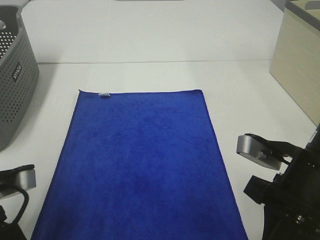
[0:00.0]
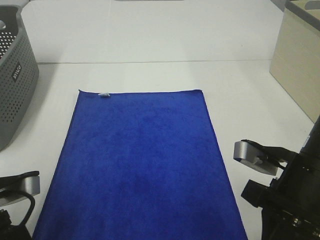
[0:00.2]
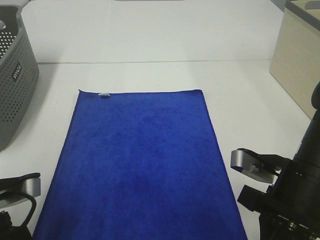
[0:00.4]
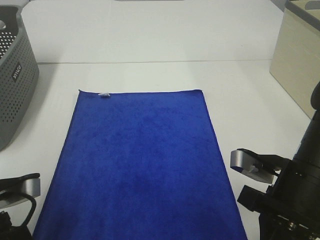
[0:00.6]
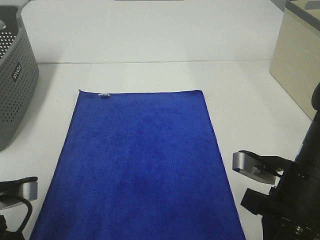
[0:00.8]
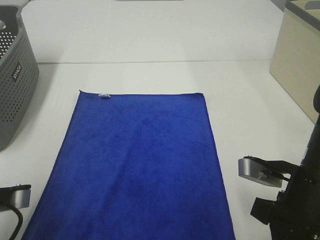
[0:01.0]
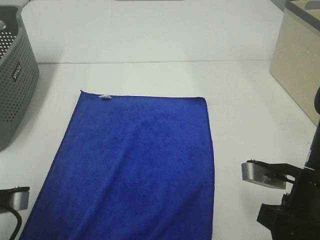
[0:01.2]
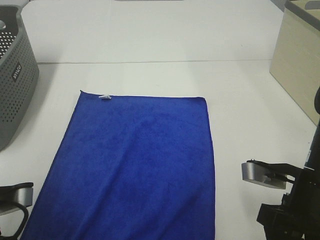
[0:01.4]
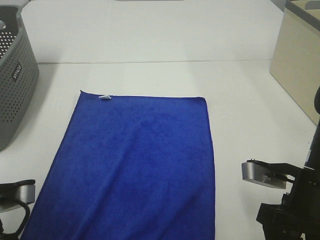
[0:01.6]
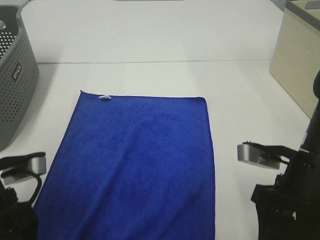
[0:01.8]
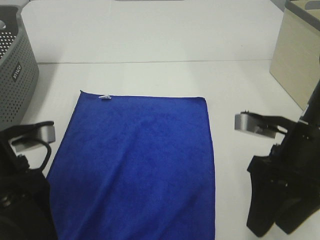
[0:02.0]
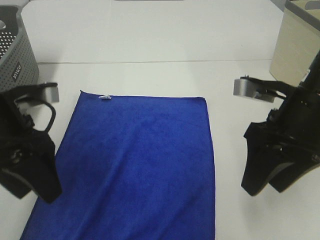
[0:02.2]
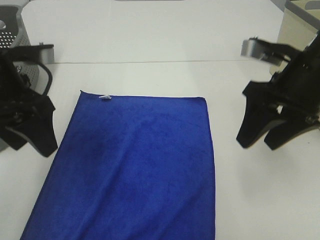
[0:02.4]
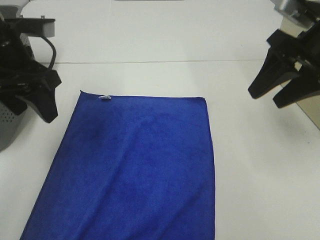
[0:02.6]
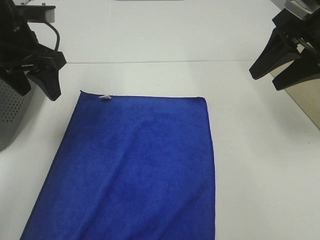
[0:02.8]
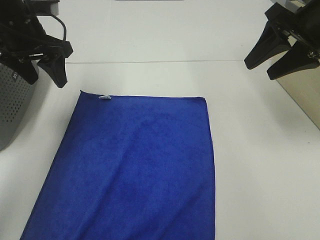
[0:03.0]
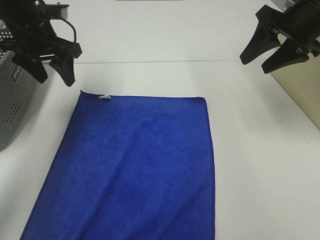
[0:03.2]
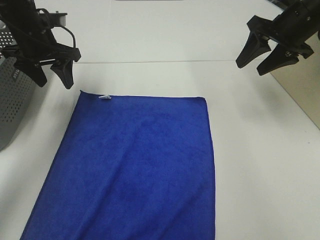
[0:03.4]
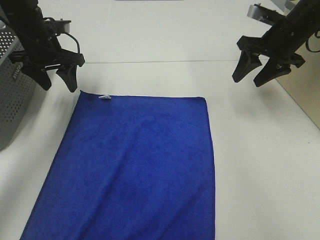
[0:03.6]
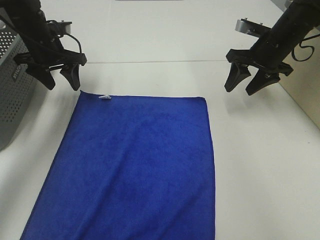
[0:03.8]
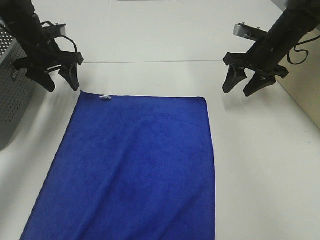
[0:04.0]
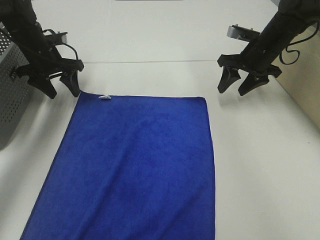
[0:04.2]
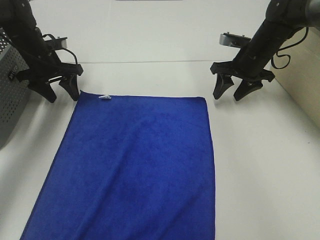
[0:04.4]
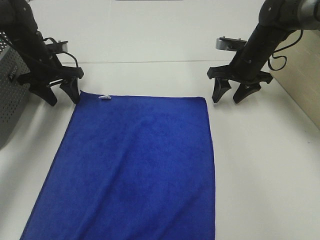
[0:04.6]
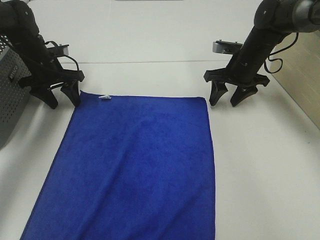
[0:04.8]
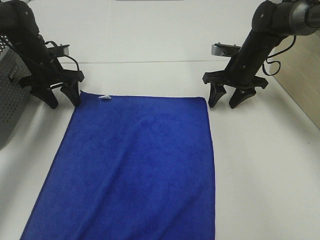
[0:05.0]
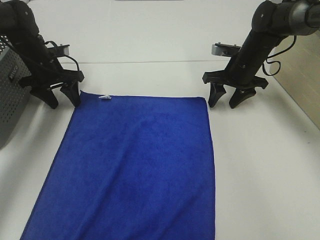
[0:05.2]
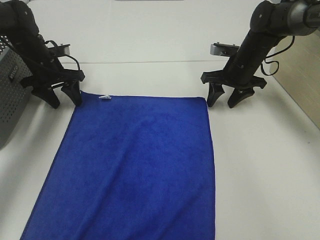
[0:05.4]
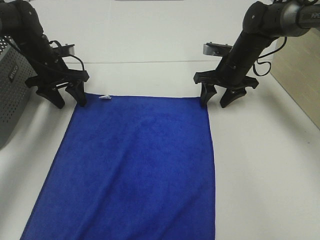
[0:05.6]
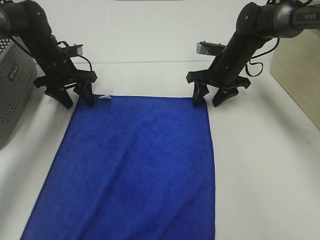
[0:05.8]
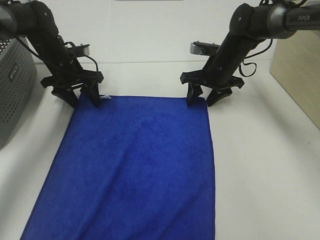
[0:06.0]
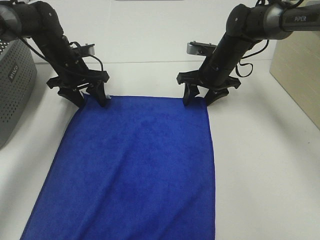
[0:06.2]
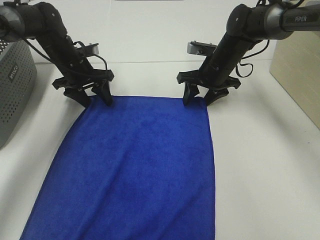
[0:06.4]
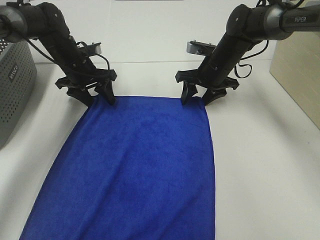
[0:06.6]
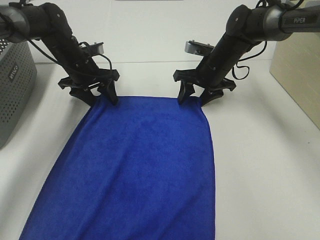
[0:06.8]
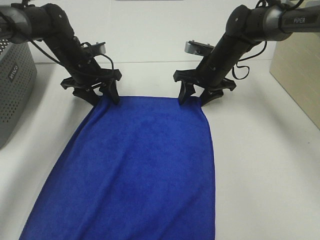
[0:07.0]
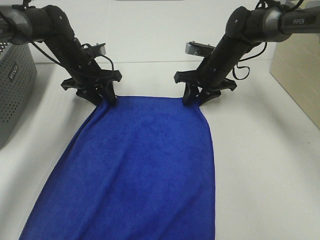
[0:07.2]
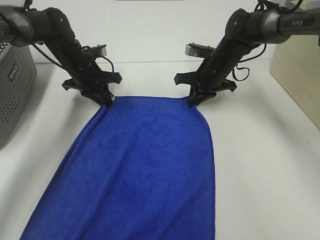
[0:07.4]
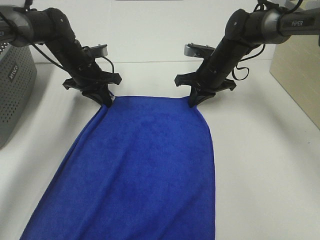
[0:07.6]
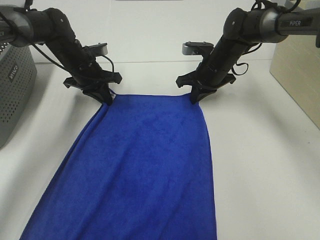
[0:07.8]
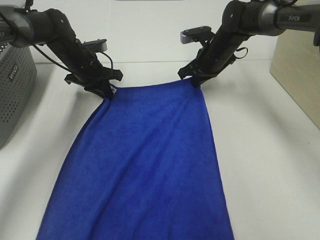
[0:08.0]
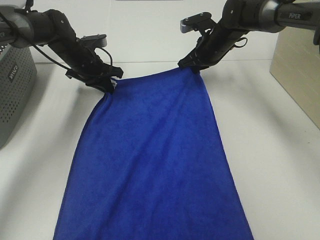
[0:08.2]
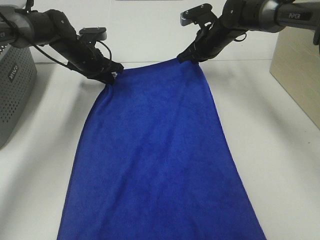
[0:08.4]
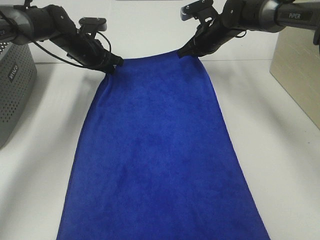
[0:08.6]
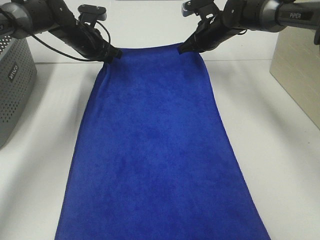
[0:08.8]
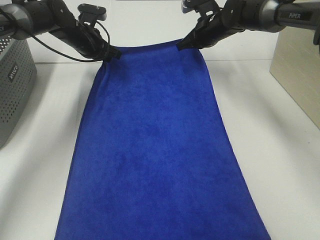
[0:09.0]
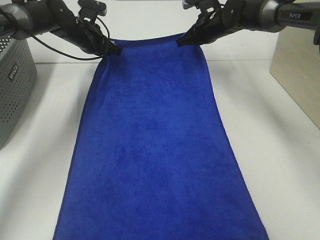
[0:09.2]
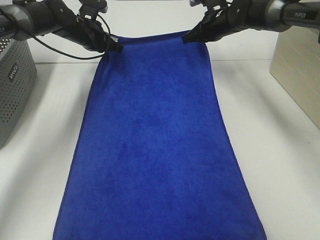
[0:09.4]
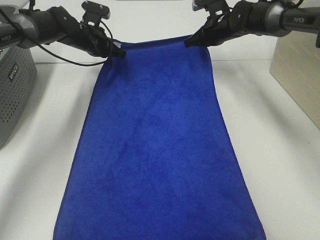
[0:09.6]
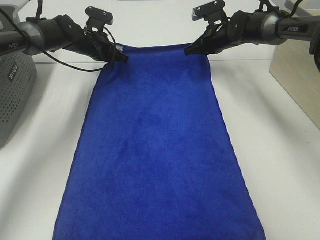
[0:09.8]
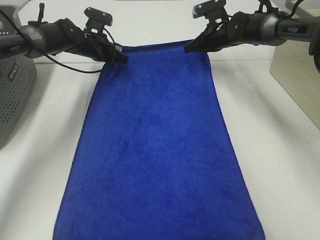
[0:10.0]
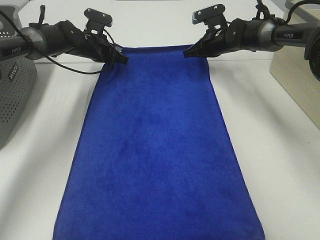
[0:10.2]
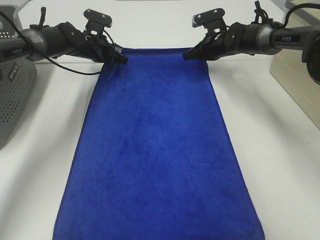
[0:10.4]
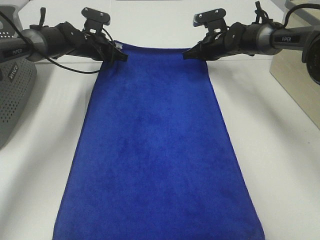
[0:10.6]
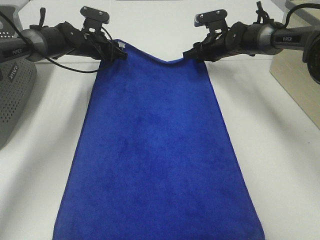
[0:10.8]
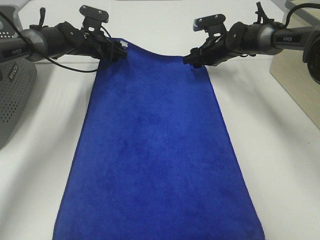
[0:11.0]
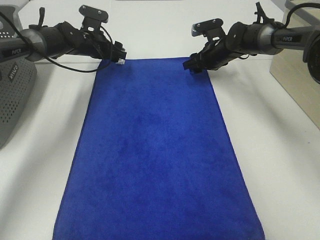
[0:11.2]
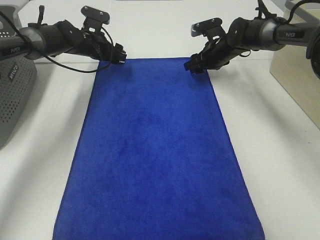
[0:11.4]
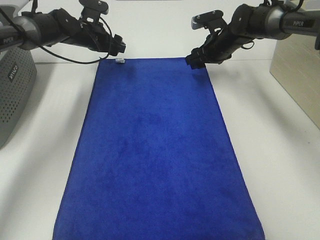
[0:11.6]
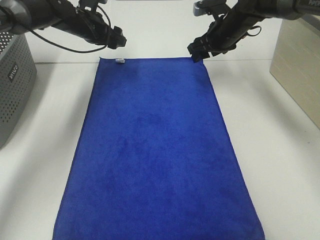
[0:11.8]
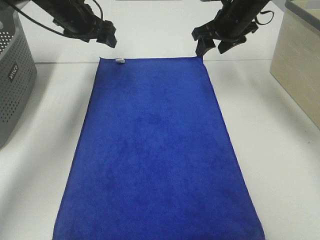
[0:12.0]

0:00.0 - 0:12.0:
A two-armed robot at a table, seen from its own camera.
Task of the whole recording: Remove the towel and place it.
Step, 0:00.0 - 0:04.4: Left hand:adjust the blue towel.
Step, 0:00.0 - 0:04.4: Right hand:adjust the blue towel.
0:00.0 - 0:01.6: The left gripper opens its fingers; the right gripper opens its fingers.
0:01.6 - 0:03.0: The right gripper heads forward and upward, covering some 25 cm, while the left gripper travels forward by about 25 cm.
0:03.0 - 0:04.4: Both grippers move downward and forward, some 15 cm.
0:04.4 - 0:06.0: The right gripper heads to the left, covering roughly 5 cm. The left gripper moves approximately 5 cm.
0:06.0 - 0:07.6: The left gripper closes up; the right gripper closes.
0:07.6 - 0:09.0: The right gripper travels forward and upward by some 10 cm. Meanwhile the left gripper travels forward by approximately 5 cm.
0:09.0 - 0:10.4: The right gripper goes about 5 cm downward.
0:10.4 - 0:12.0: The right gripper travels upward and backward by some 15 cm, and opens its fingers, while the left gripper is displaced upward by about 10 cm, and opens up.

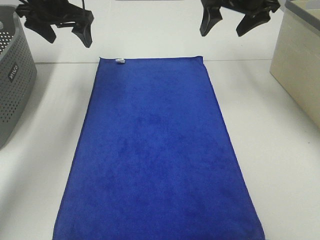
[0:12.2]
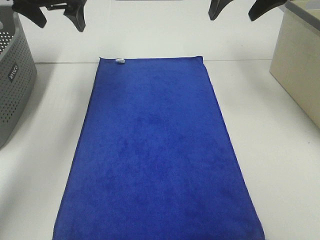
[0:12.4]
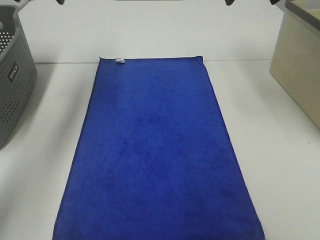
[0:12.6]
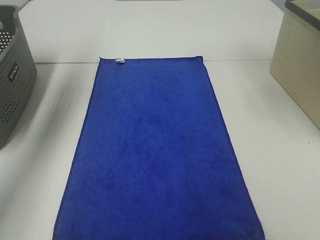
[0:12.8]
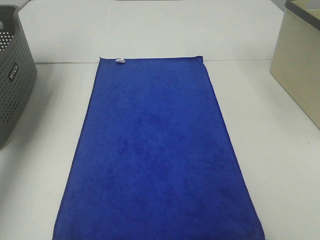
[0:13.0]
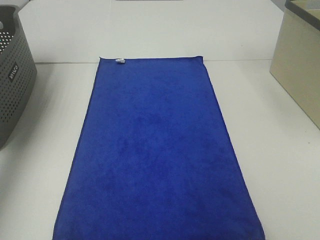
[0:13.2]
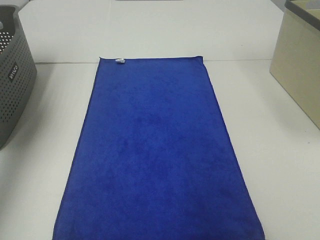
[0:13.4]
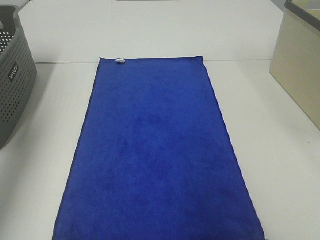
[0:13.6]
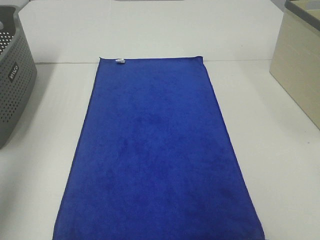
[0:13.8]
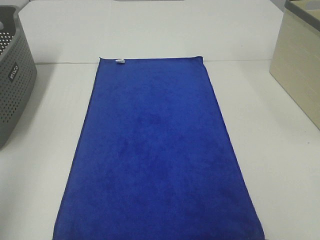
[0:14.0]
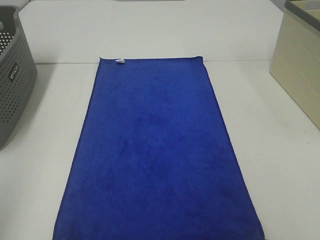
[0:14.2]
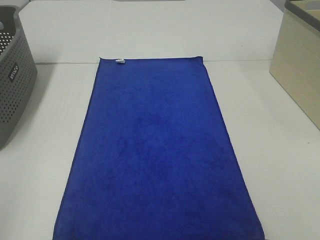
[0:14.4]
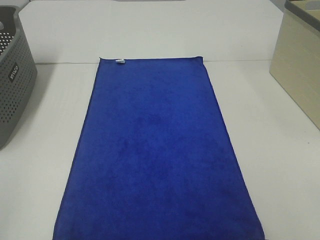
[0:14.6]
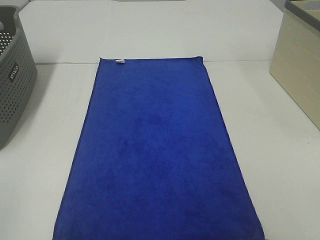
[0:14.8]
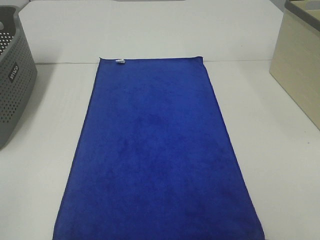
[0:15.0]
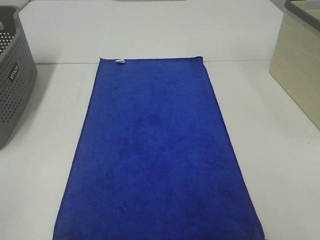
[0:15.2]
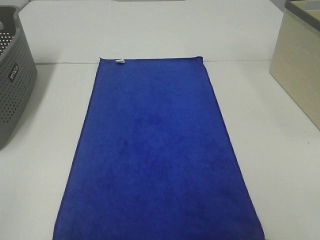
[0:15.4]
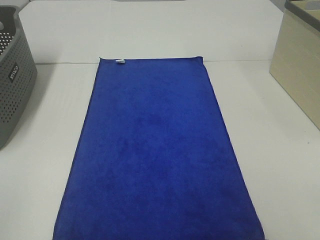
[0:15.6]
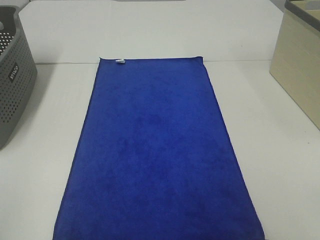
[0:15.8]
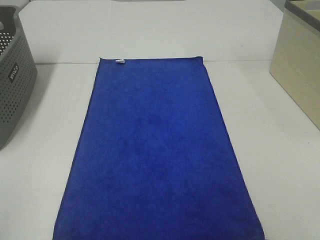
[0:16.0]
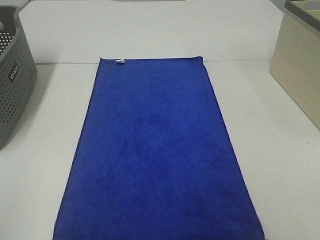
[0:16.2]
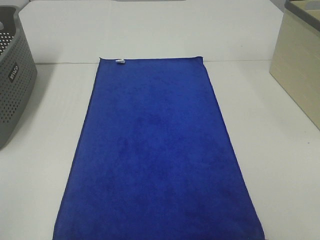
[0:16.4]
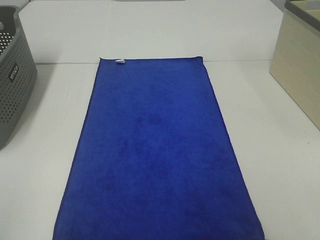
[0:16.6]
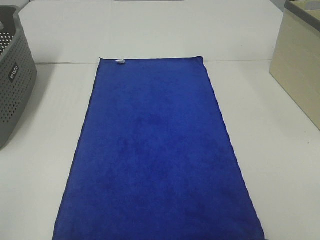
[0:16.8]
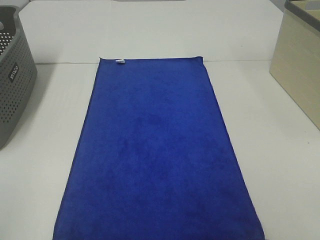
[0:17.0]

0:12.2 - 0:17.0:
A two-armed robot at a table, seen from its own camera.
Task of the whole recording: Remove the towel and place it.
0:12.2 - 0:13.8: The left gripper is displaced backward and to the left by some 35 cm. Meanwhile the right gripper is displaced backward by about 30 cm.
0:13.8 - 0:15.4: The left gripper travels backward and downward by about 20 cm.
0:15.4 - 0:17.0: The two grippers keep their place.

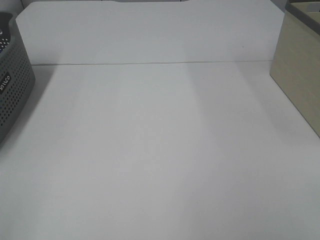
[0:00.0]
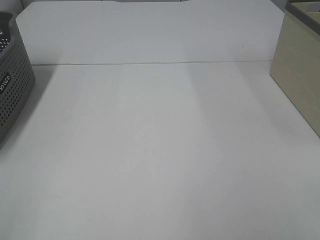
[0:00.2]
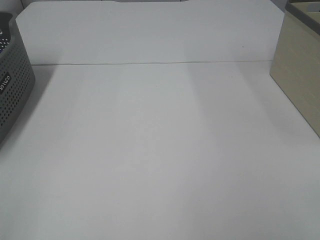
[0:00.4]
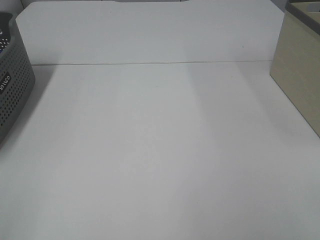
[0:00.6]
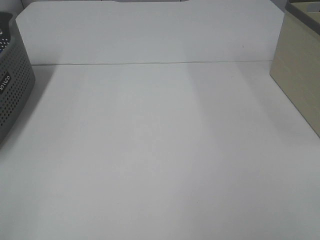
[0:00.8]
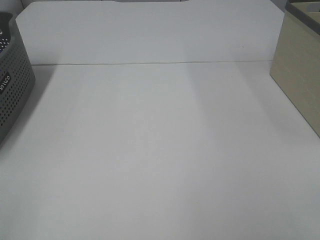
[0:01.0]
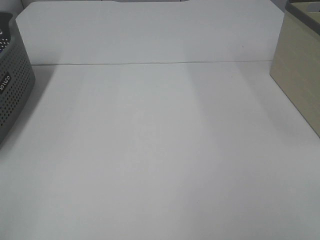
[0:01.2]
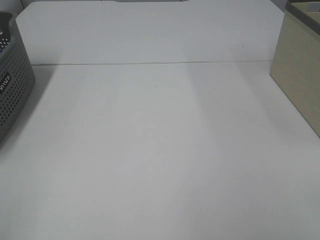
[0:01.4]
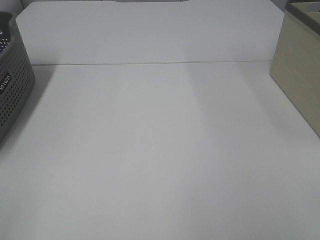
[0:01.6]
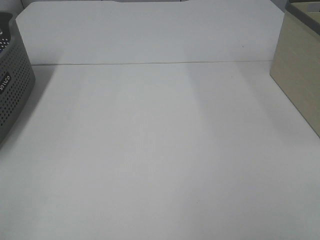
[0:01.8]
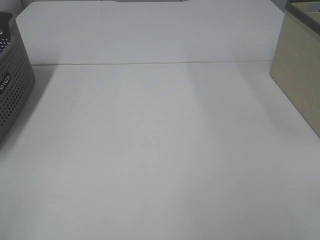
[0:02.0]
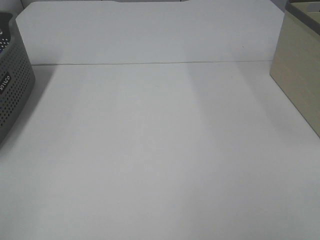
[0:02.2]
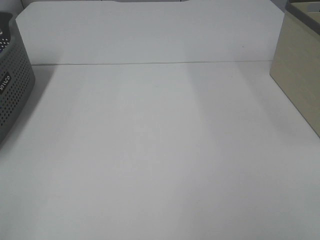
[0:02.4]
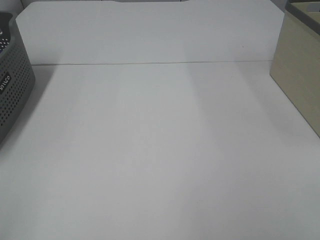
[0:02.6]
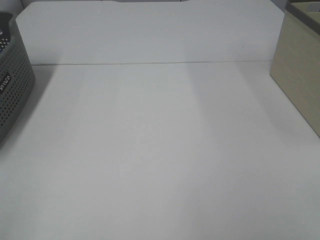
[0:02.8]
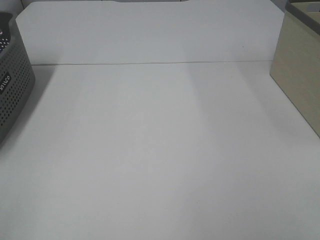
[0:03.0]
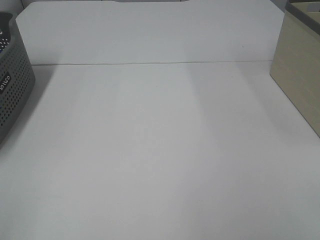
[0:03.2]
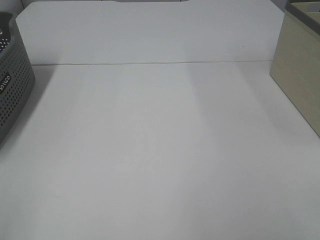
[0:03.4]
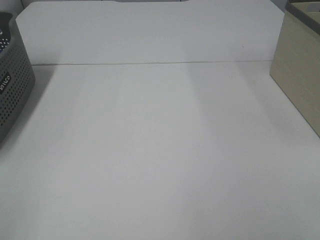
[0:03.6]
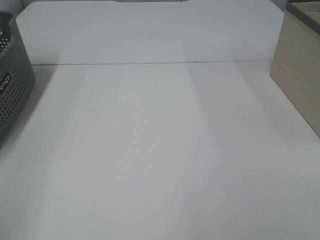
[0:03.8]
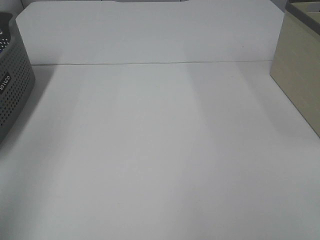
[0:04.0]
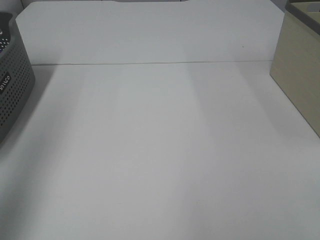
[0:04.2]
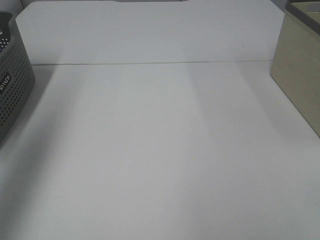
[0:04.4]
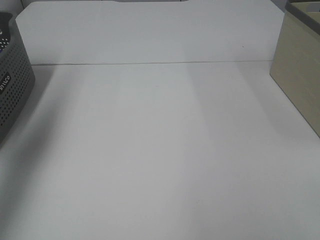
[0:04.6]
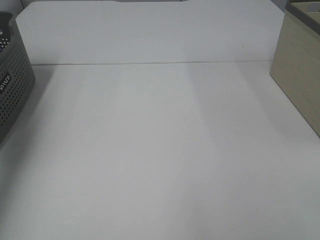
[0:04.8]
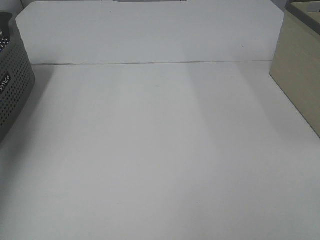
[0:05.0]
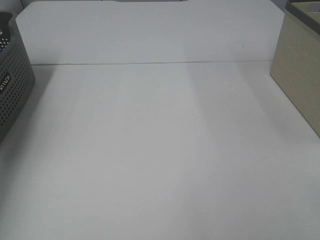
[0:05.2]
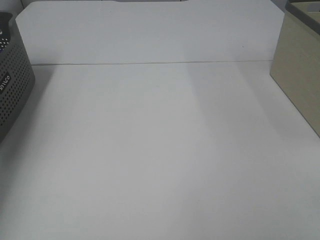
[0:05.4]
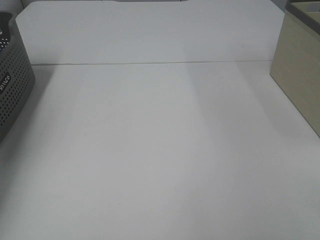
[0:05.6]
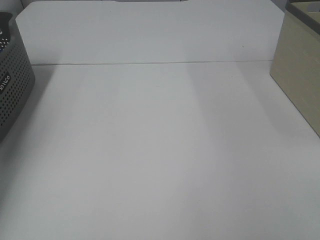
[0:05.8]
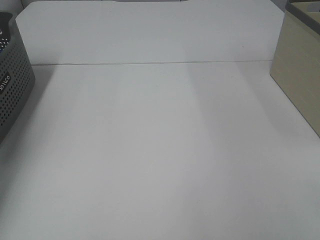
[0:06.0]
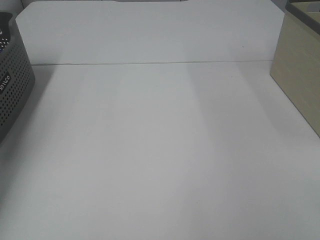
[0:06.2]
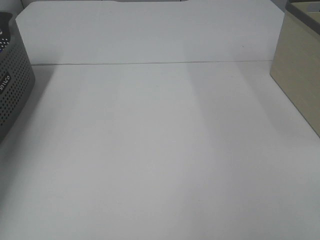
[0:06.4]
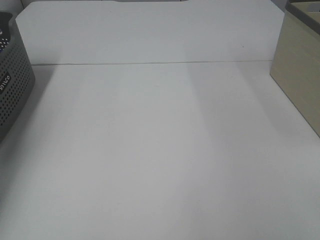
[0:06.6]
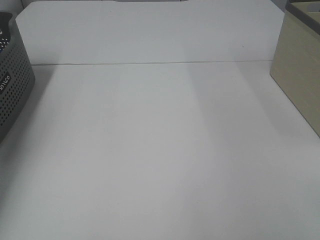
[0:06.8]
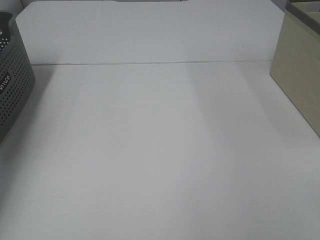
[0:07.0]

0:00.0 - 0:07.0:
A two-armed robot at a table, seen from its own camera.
Task of the whole recording: Remove the towel and place it.
0:00.0 - 0:02.8: The two grippers keep their place.
0:02.8 - 0:04.2: The left gripper shifts about 20 cm forward and upward.
0:04.2 - 0:05.6: The left gripper is displaced forward and downward by roughly 35 cm.
